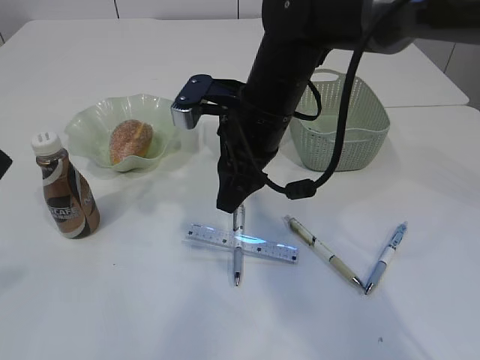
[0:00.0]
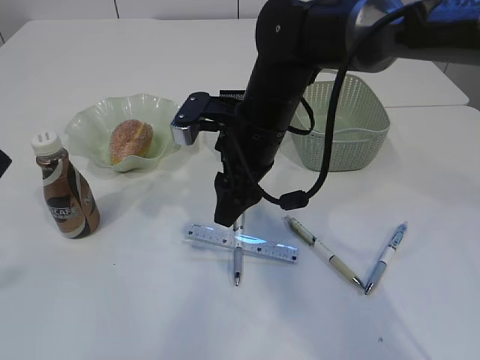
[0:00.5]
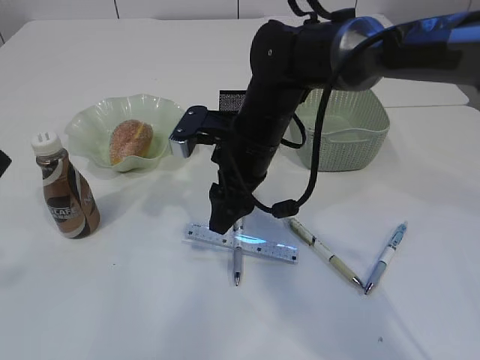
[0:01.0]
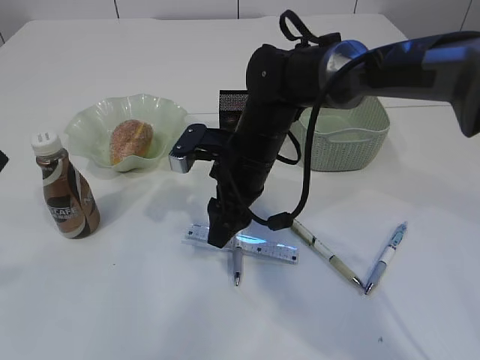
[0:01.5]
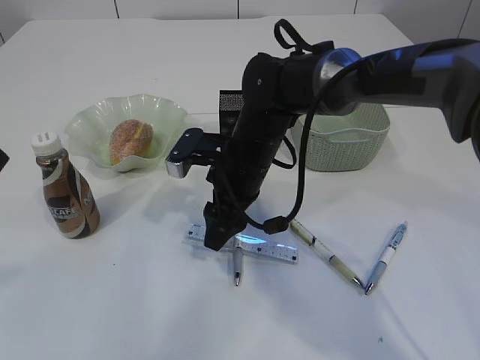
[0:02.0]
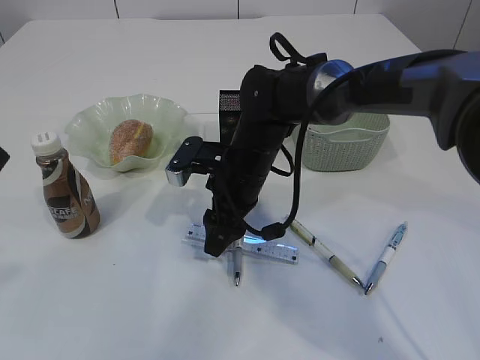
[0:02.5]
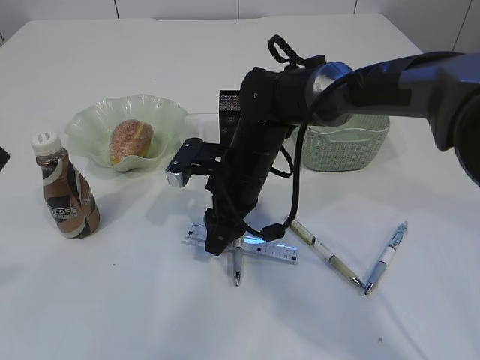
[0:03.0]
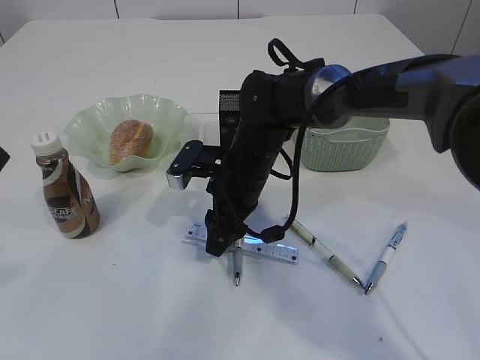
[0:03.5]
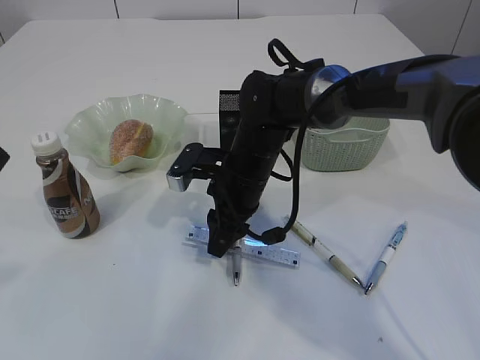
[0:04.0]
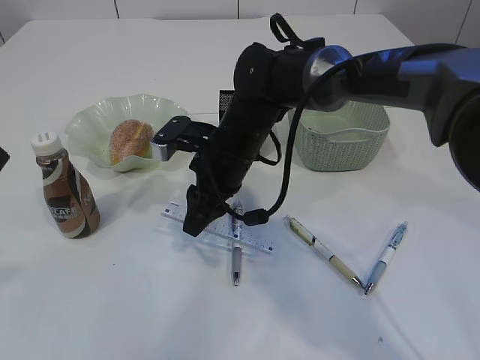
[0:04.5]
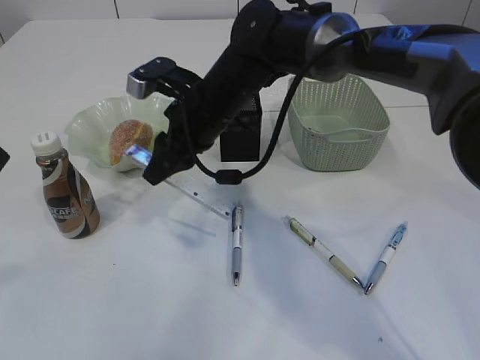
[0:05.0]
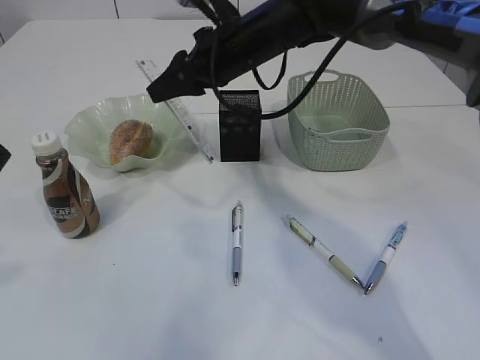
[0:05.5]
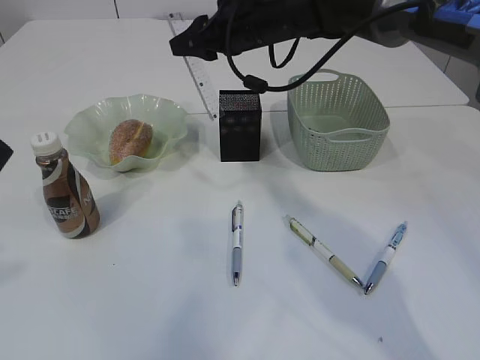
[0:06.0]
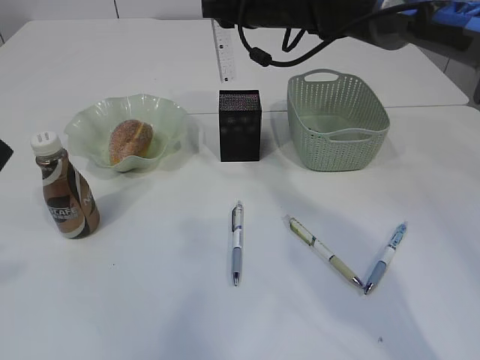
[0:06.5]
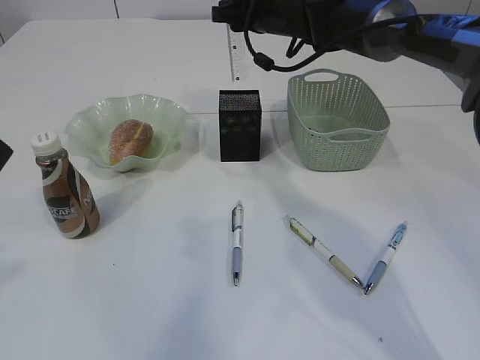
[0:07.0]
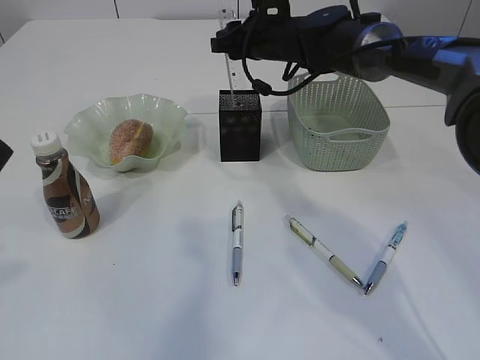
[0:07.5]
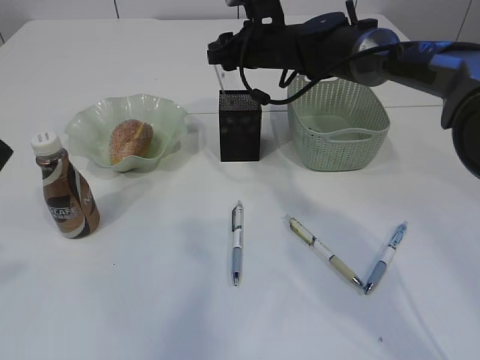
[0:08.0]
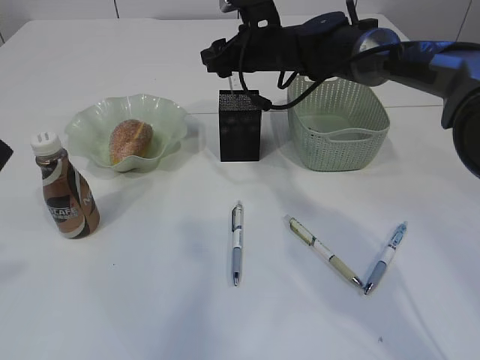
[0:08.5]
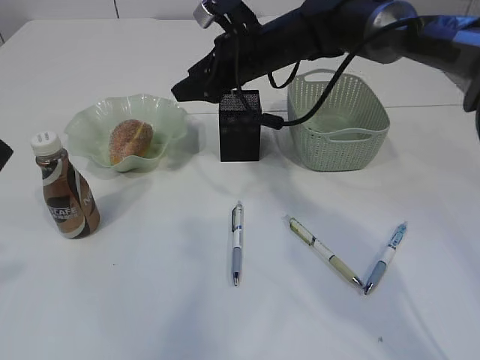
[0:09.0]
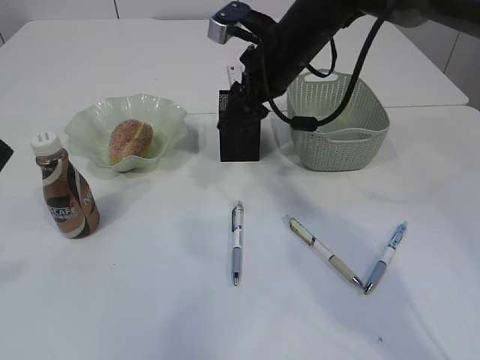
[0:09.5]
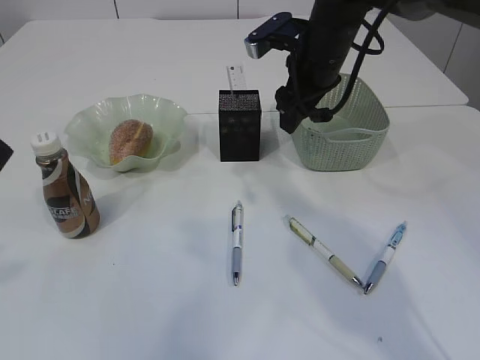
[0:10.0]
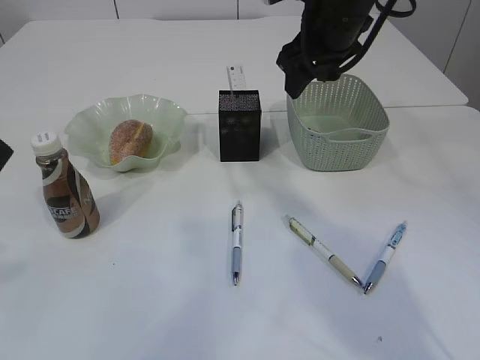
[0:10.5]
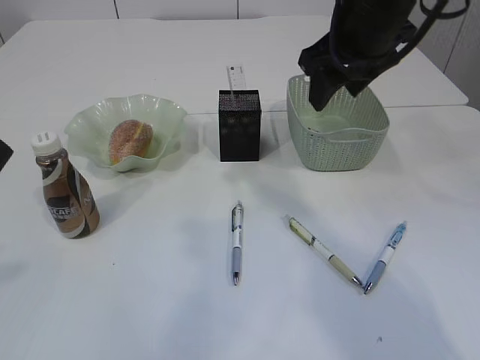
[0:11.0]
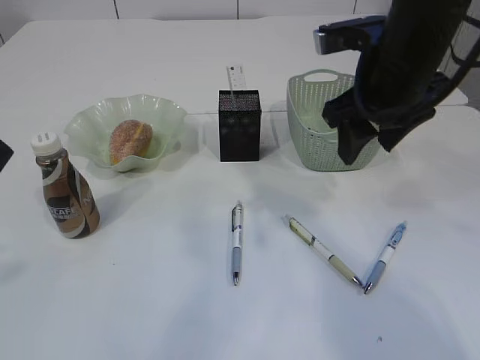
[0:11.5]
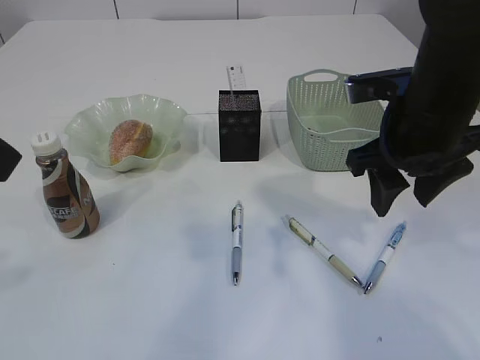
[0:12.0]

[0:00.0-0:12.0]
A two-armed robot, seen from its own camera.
Step, 0.0 to 5.5 s: pick up the ruler.
Step, 6.0 to 9.5 s: Place the ruler into the pen holder.
0.0 to 2.0 s: The right gripper is displaced downward by some 10 cm.
2.0 to 4.0 s: The right gripper closes.
4.0 to 6.0 s: The right gripper moves upward and forward, roughly 20 cm.
6.0 to 8.0 s: The right gripper is displaced downward by some 5 cm.
8.0 to 10.0 s: The right gripper heads backward, covering roughly 10 cm.
10.0 to 12.0 s: The right gripper moves backward, approximately 15 cm.

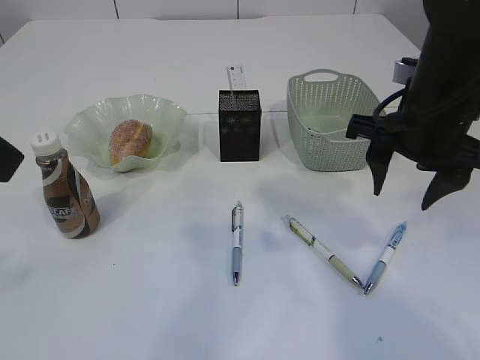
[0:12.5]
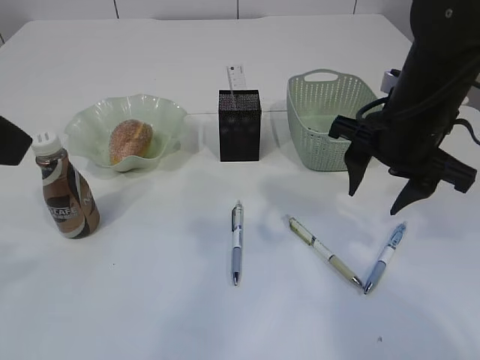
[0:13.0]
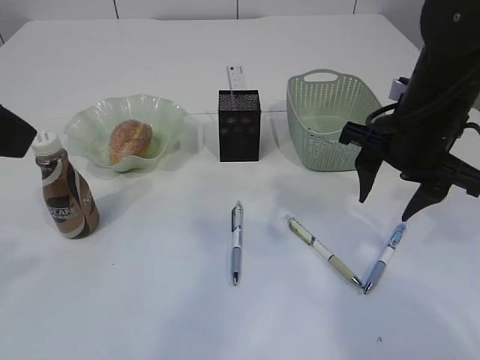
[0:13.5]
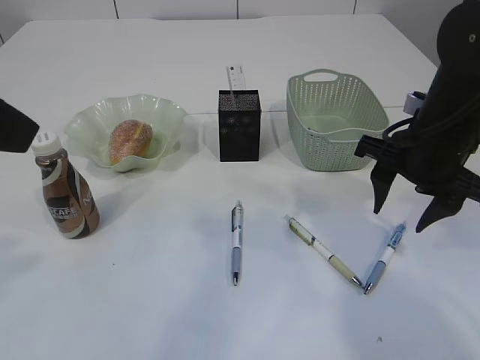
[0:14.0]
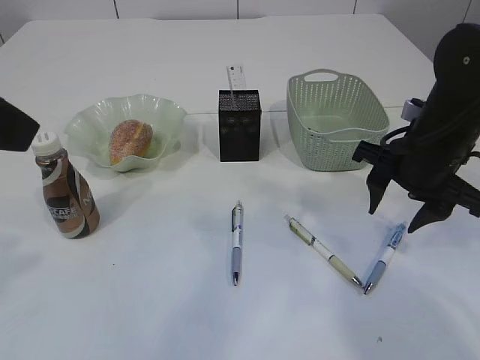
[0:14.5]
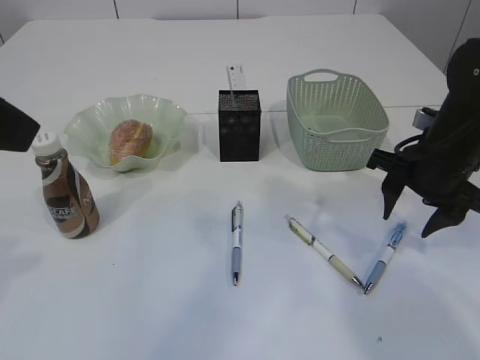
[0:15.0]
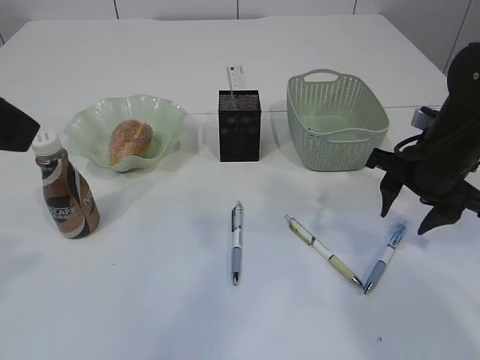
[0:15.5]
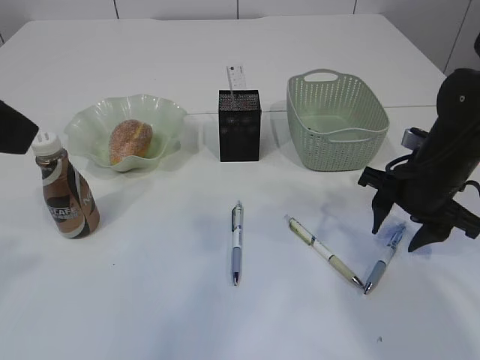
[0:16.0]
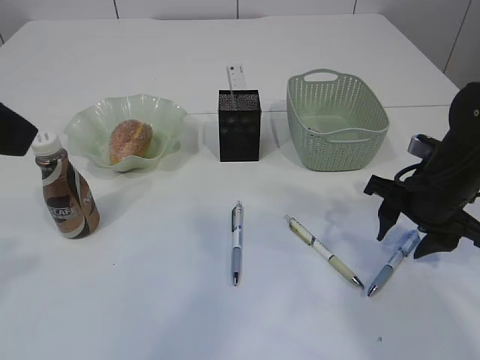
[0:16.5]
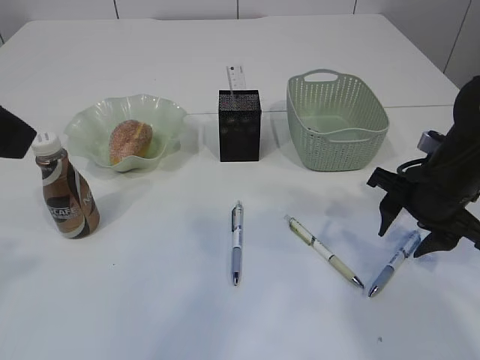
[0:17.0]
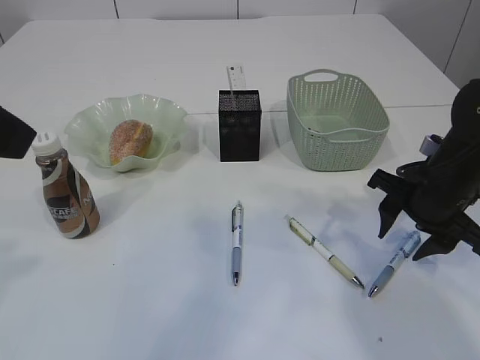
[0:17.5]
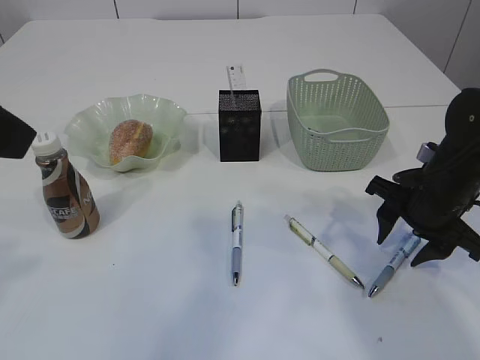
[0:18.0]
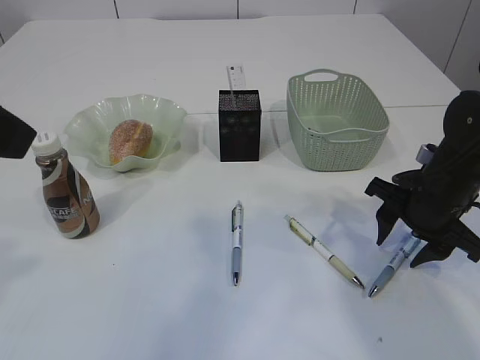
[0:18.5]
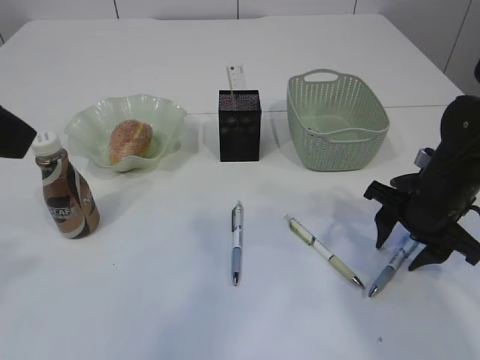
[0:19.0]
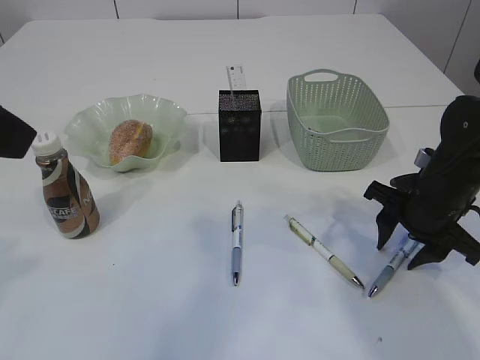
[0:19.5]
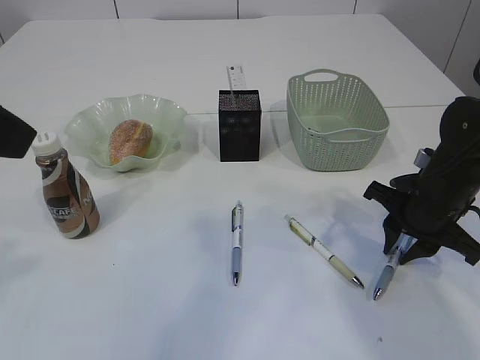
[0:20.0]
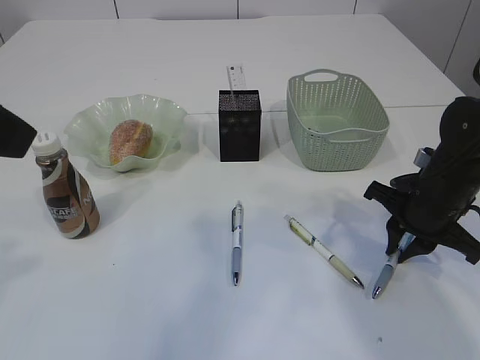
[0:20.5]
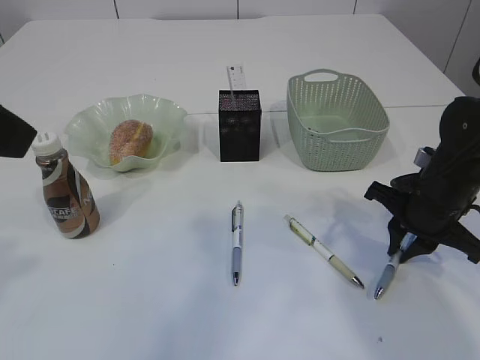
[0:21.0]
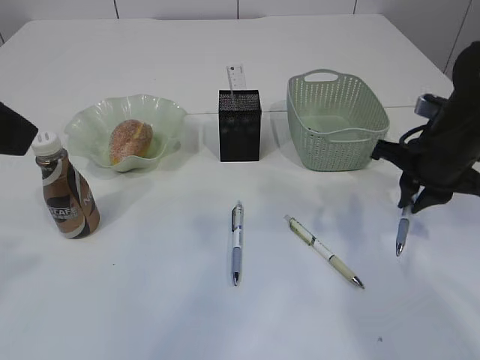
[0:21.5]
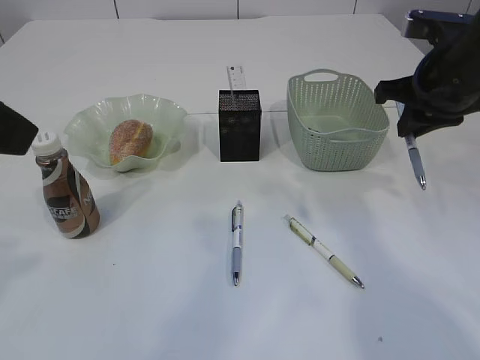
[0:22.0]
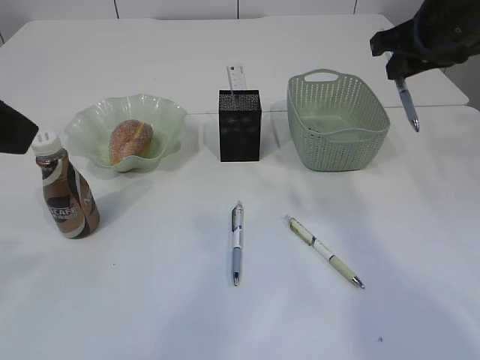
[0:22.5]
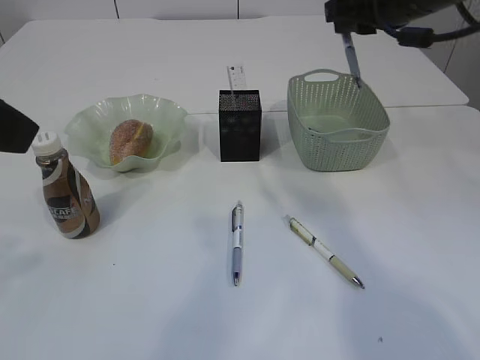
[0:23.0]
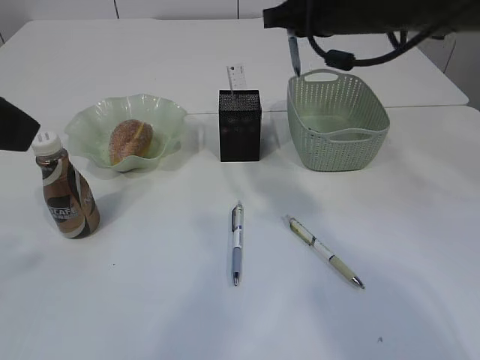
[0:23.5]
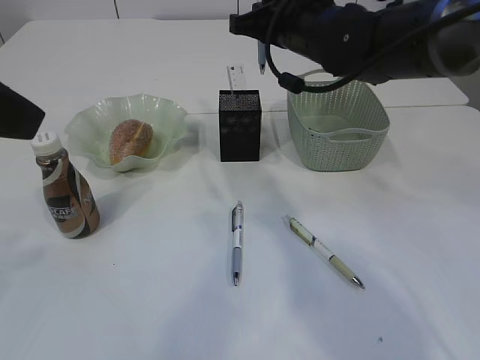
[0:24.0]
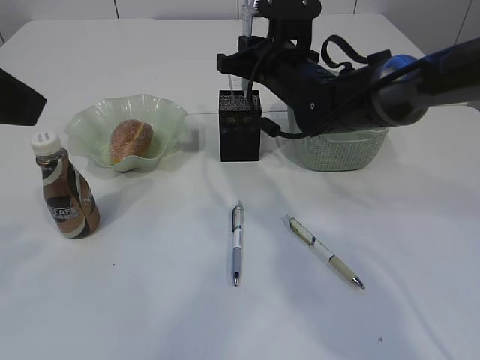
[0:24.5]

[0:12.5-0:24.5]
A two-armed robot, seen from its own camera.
Step, 12.5 to 21.5 s: Pick up the pen with right arm.
12.5 to 14.5 s: The right gripper moves downward, roughly 5 cm.
14.5 to 16.5 s: The right gripper shifts by approximately 5 cm.
16.5 to 18.5 s: The grippers stay close to where they were, moving slightly.
18.5 to 20.5 s: The right gripper closes.
20.5 to 22.5 s: The right gripper moves upward, some 20 cm.
22.5 to 24.5 s: The right gripper shifts about 20 cm to the left, downward and forward.

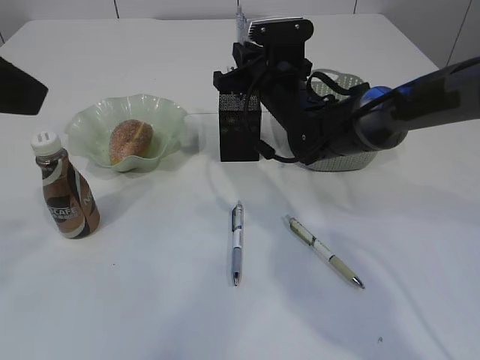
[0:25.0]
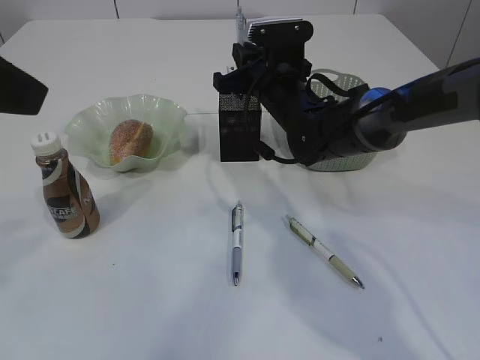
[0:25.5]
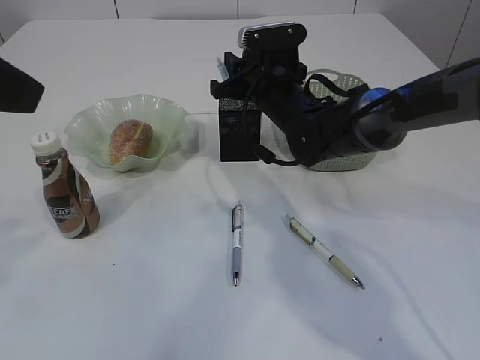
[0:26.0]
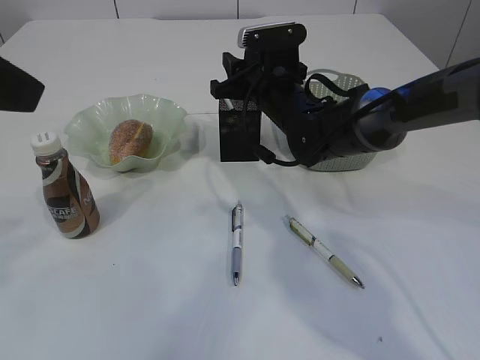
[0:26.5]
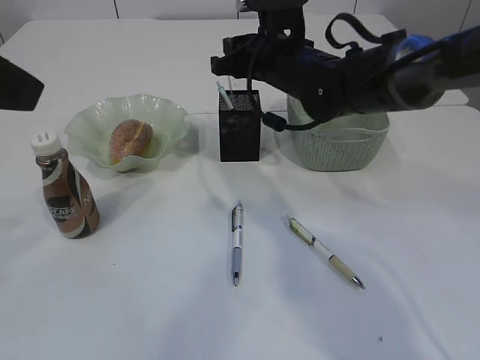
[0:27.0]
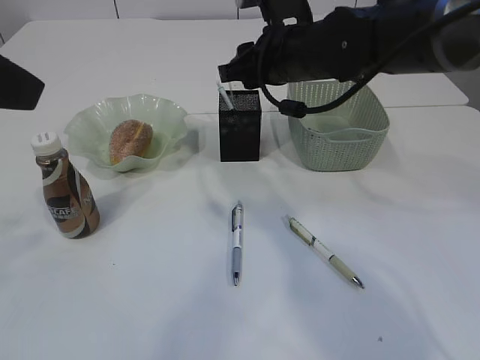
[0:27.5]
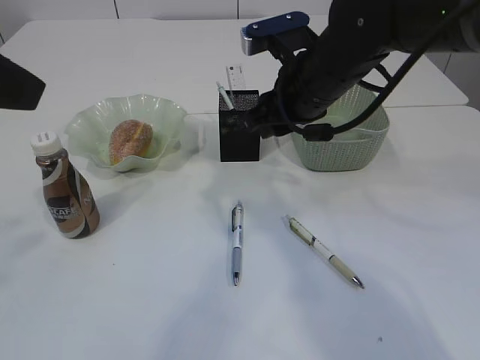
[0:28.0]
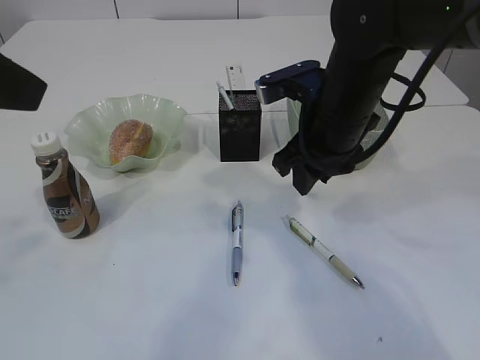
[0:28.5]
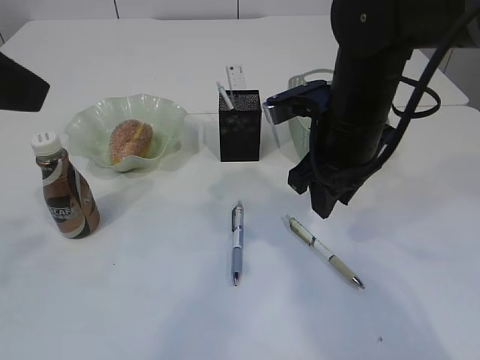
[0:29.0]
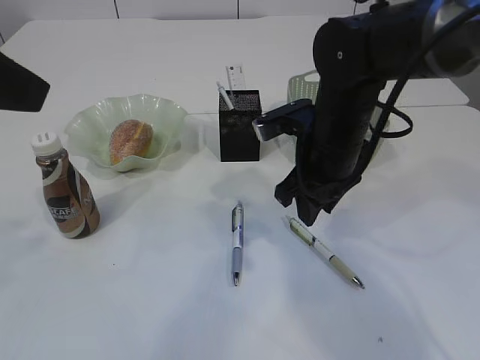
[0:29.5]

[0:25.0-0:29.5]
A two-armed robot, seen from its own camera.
Step, 25.0 to 27.0 s: Place the pen into the pen holder.
25.0 to 27.0 s: The right gripper opens its fingers.
27.0 to 29.5 s: The right gripper travels backward by roughly 10 cm.
